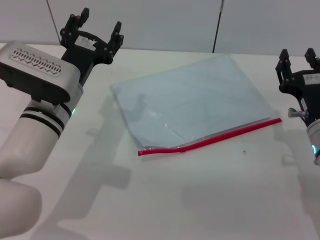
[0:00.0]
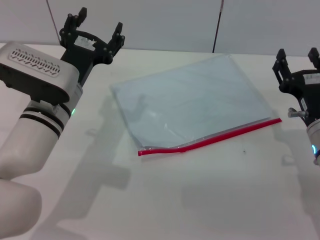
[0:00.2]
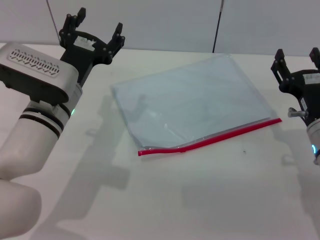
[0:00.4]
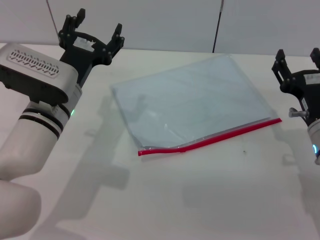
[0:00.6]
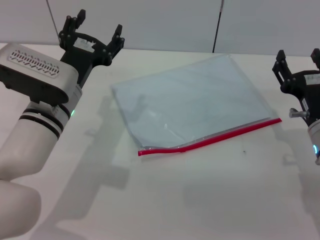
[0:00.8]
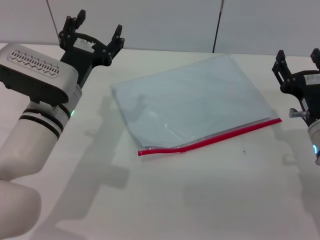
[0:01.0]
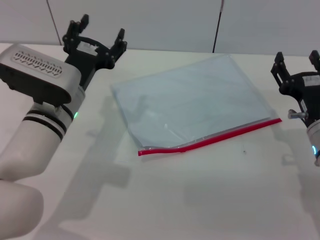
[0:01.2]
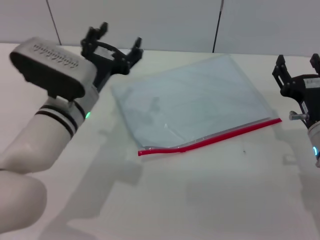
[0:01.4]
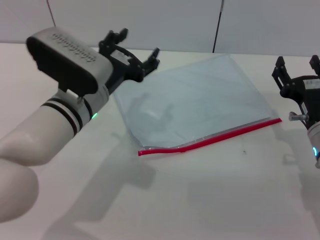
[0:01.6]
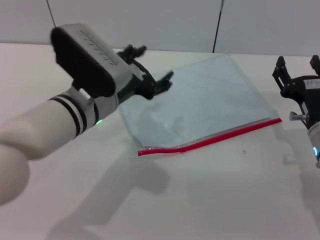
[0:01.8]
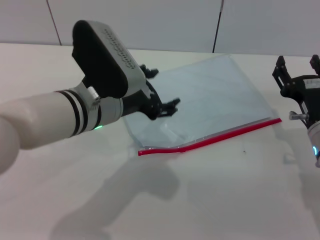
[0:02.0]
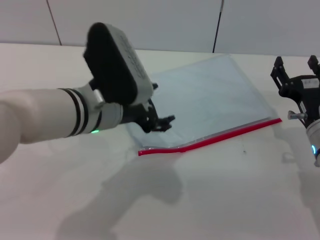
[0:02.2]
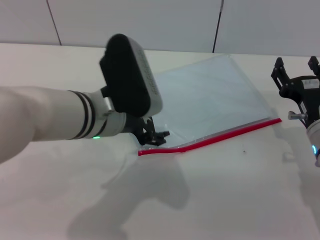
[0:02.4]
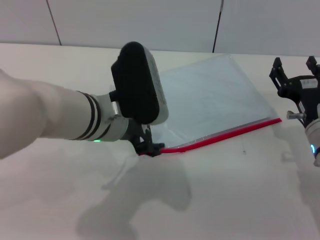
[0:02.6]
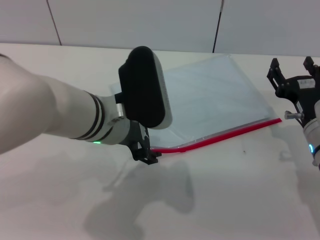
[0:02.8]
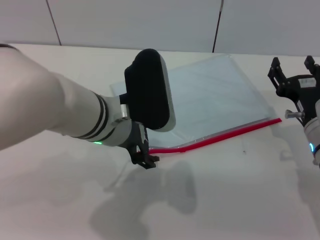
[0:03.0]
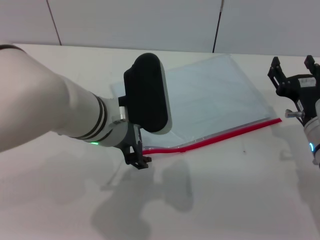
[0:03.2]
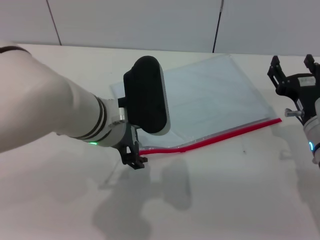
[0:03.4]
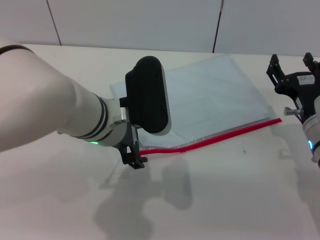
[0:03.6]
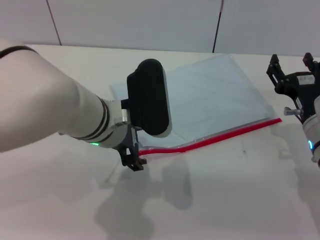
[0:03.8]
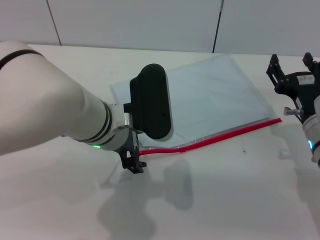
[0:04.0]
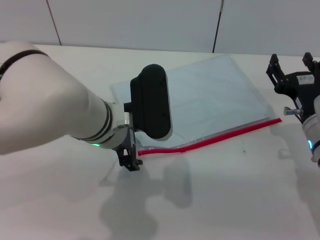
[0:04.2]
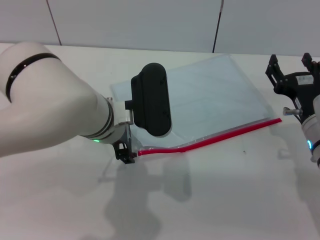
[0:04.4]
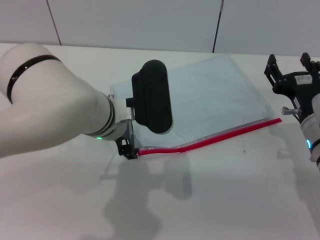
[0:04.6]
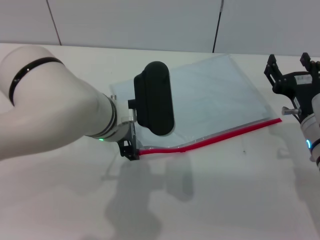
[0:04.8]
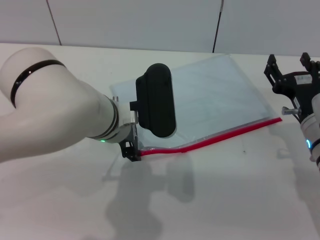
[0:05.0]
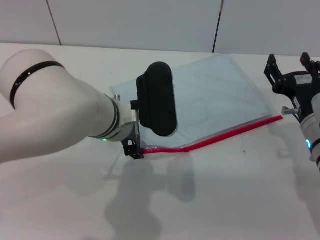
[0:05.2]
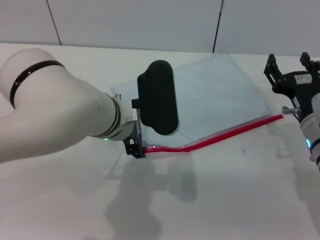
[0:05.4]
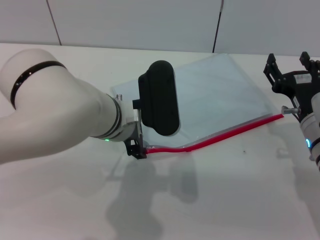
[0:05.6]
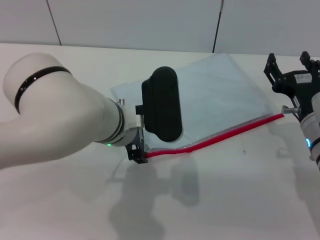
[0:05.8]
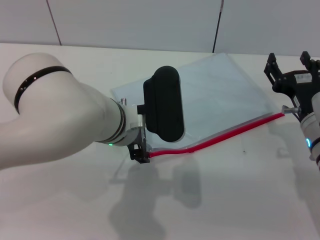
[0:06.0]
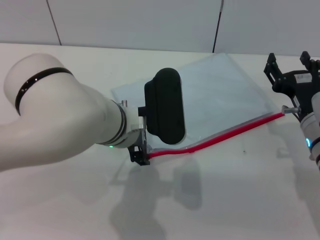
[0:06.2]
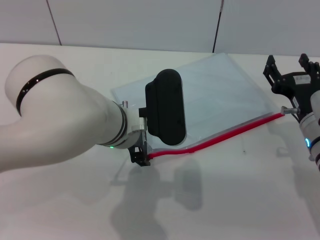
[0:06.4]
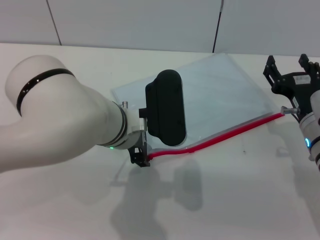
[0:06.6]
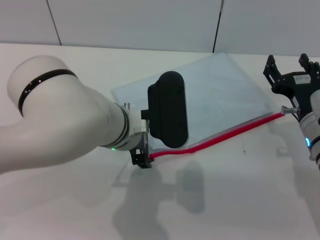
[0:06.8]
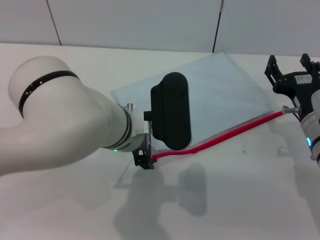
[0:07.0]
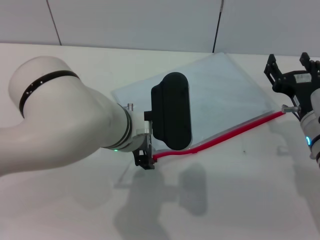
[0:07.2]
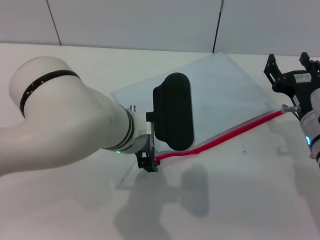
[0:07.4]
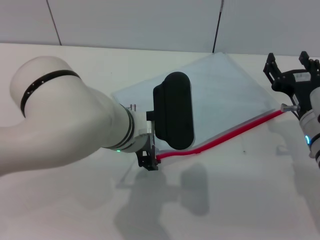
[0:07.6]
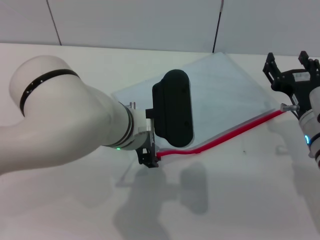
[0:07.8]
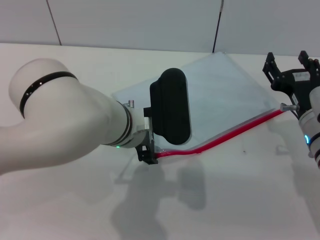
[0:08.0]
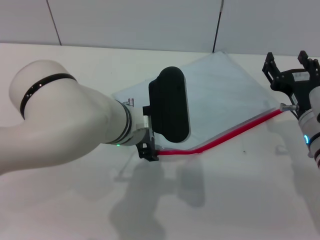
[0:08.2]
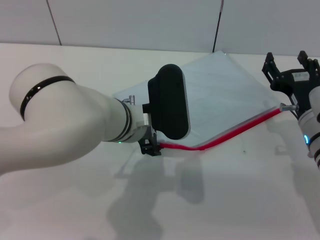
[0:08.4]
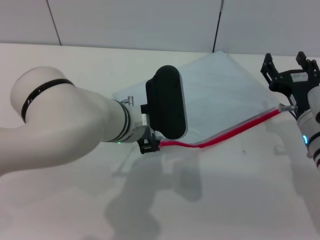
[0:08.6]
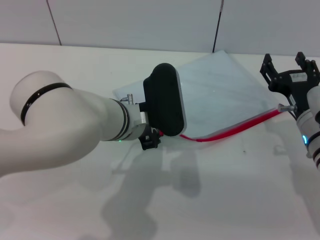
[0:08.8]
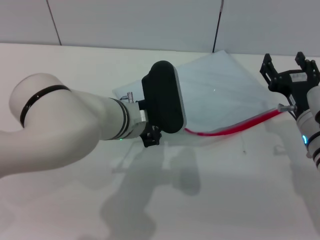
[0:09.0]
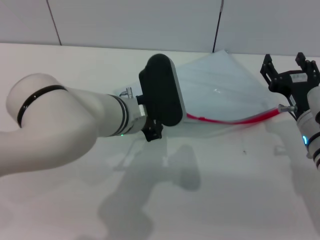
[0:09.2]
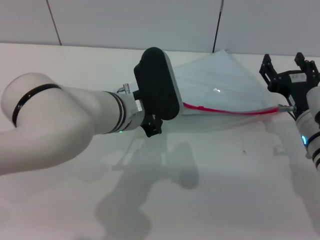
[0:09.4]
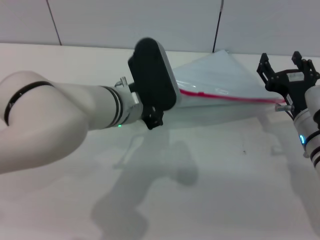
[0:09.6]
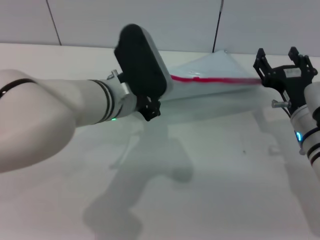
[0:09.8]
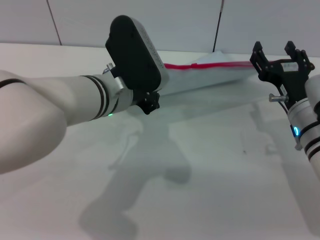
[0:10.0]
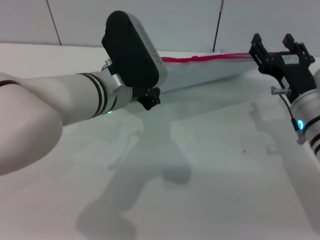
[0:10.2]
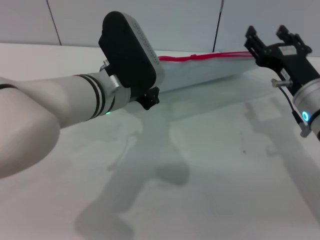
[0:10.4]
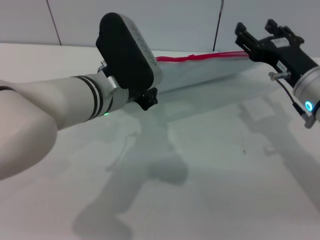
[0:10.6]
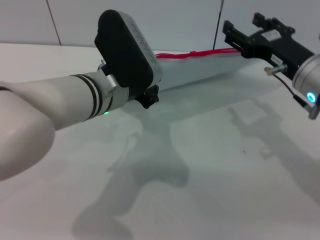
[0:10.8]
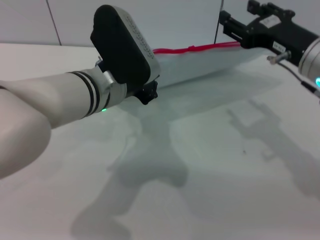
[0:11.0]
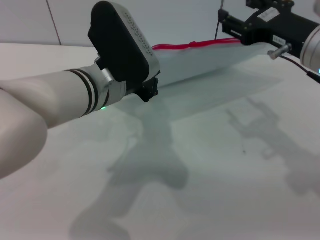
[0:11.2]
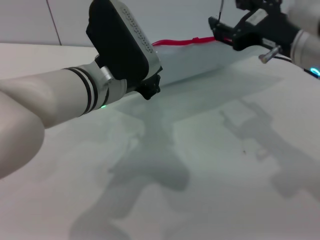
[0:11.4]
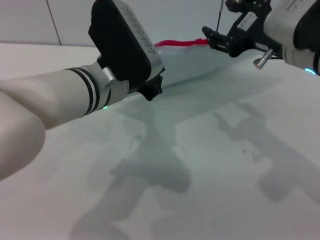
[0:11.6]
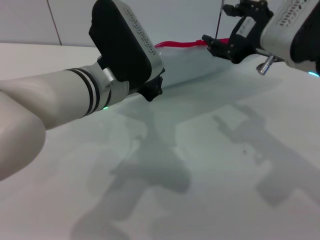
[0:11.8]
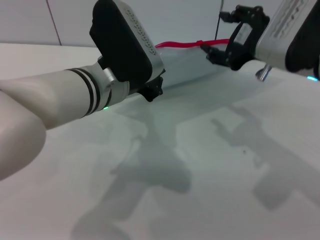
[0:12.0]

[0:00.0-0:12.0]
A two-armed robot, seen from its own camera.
Step, 0:00.0 to 0:10.2: Pick up the transparent plastic bag with the left gripper.
0:00.0 to 0:01.6: The right gripper opens up.
0:01.6 to 0:03.0: The left gripper shifts by approximately 5 cm.
0:03.0 to 0:07.6: The grippers move only a little.
0:07.6 to 0:09.0: The left gripper closes.
0:09.0 to 0:10.4: The left gripper closes up, while the right gripper shifts some 5 cm upward.
0:10.4 to 0:12.0: The right gripper goes about 10 cm upward.

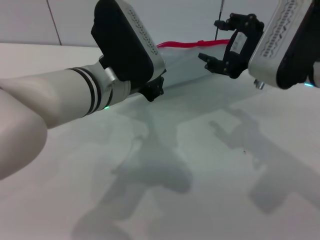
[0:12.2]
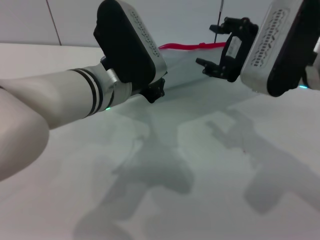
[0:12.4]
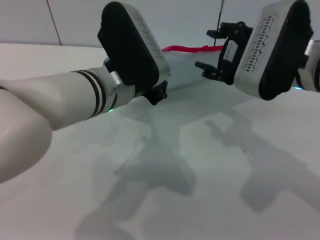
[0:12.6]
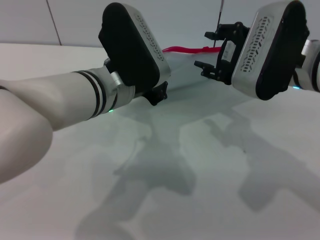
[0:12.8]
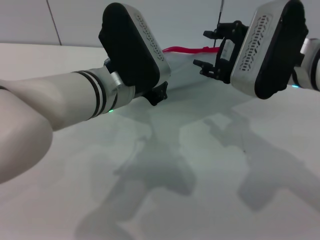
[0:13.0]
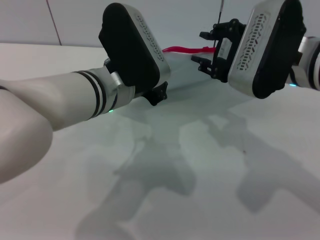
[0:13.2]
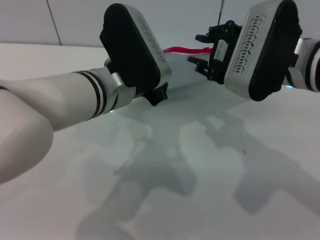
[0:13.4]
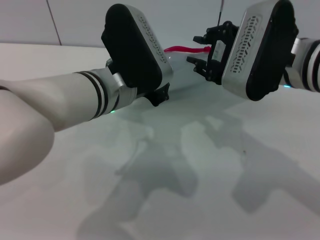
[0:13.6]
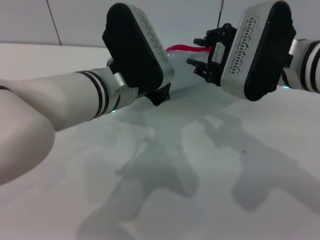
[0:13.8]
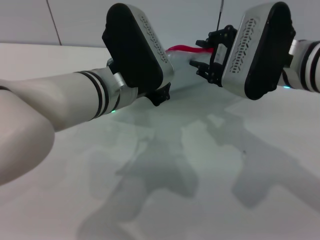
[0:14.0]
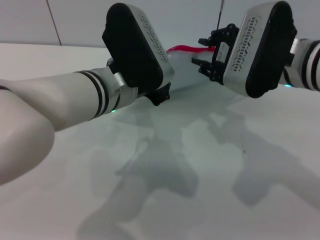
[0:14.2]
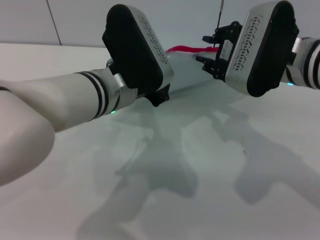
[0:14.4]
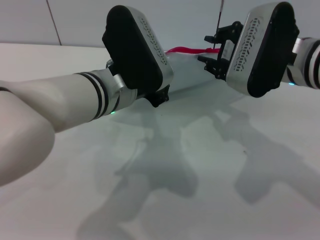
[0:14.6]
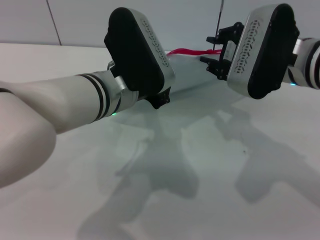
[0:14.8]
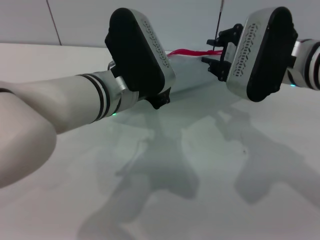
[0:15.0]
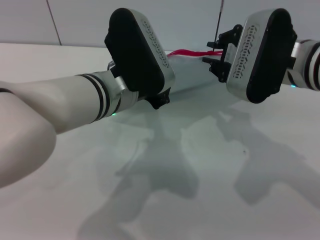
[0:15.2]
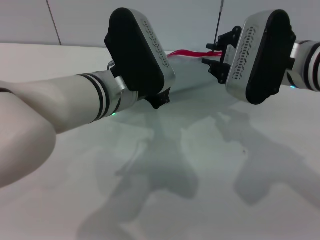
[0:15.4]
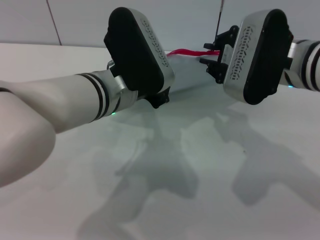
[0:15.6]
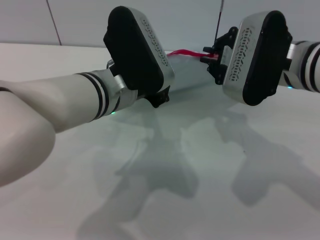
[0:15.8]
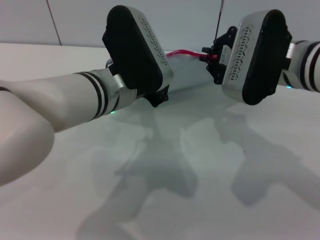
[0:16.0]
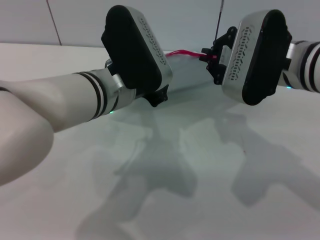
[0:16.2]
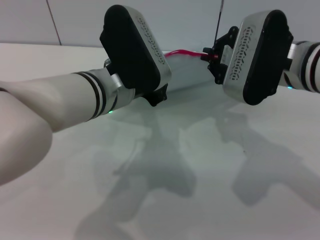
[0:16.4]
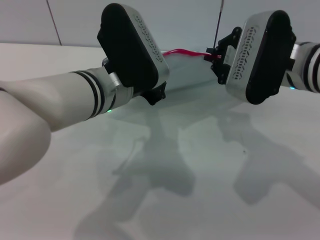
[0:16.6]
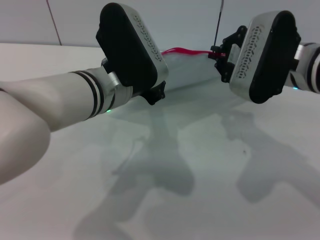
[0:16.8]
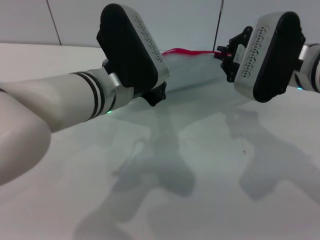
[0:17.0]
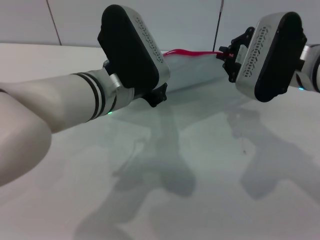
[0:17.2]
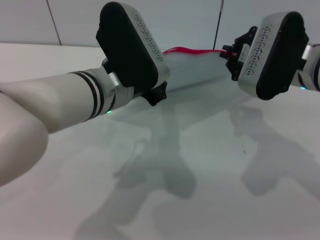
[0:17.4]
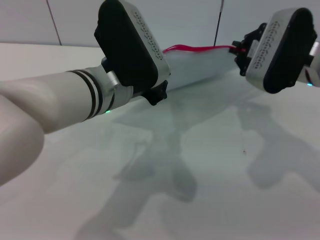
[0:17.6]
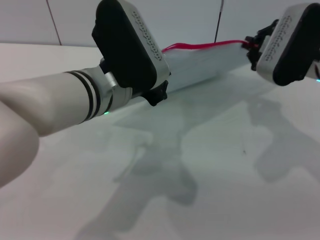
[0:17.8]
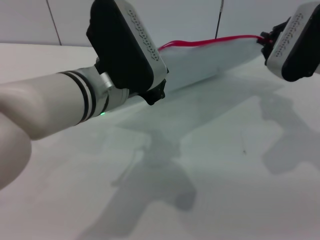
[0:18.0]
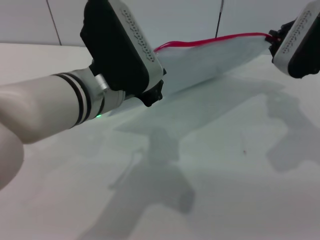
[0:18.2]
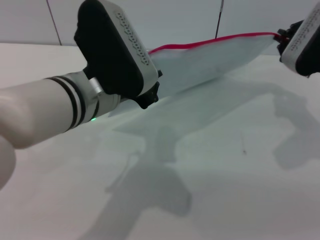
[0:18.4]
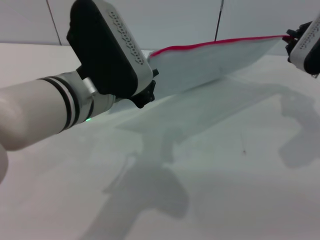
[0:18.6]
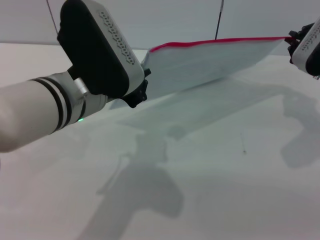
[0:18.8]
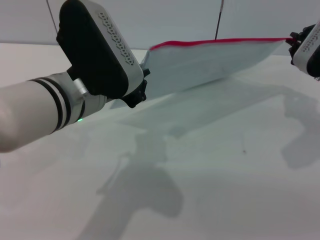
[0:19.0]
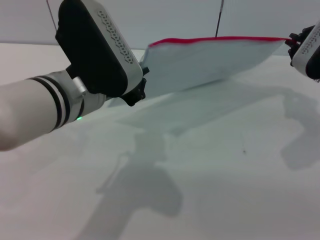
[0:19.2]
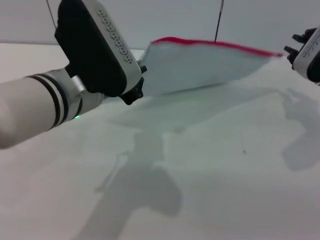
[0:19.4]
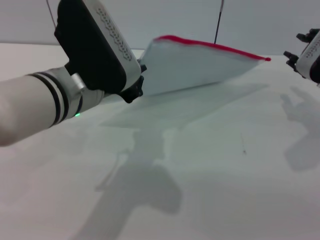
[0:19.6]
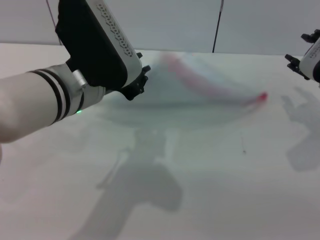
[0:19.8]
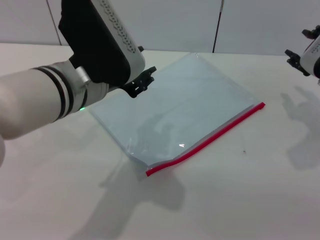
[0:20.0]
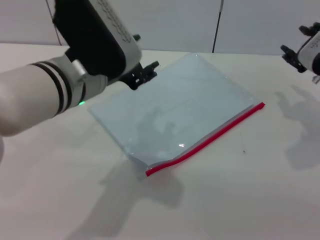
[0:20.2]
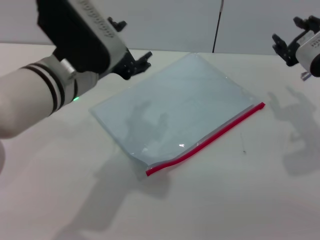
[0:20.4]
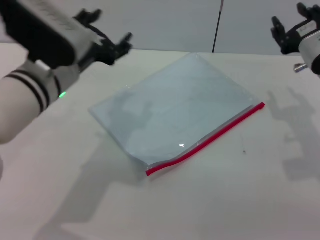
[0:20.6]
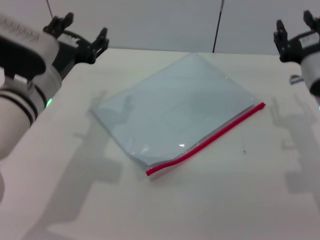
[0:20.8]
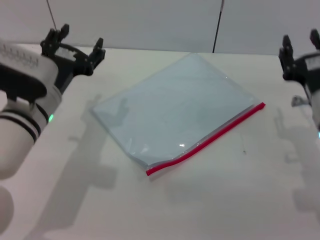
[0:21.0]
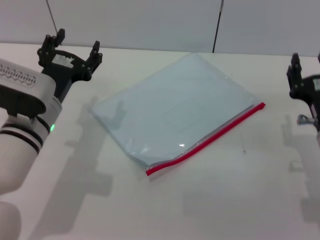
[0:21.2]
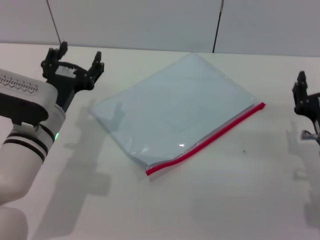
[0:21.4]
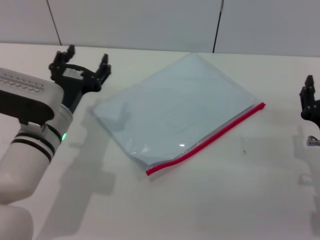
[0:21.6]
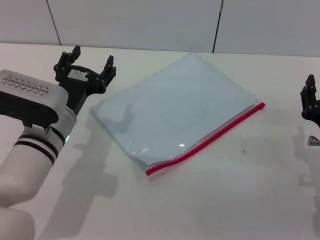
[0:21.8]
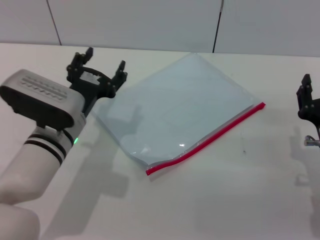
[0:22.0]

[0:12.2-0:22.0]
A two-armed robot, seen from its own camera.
Step, 0:12.2 to 0:19.4: Pulling up the zipper on the transparent plastic bag with the right gripper to close it.
Step, 0:19.6 to 0:20.6: Place the transparent plastic bag.
0:12.2 to 0:13.6: The right gripper closes.
0:13.6 to 0:15.0: The grippers move only a little.
0:15.0 to 0:16.4: The right gripper closes its fingers.
0:16.4 to 0:17.8: The right gripper moves to the right, roughly 5 cm.
0:17.8 to 0:19.2: The right gripper heads to the right, covering approximately 5 cm.
0:19.2 to 0:20.6: The right gripper opens its fingers; the left gripper ends up roughly 5 cm from where it was, and opens.
0:20.6 to 0:22.0: The right gripper goes about 15 cm backward and downward. The left gripper is displaced downward by some 10 cm.
